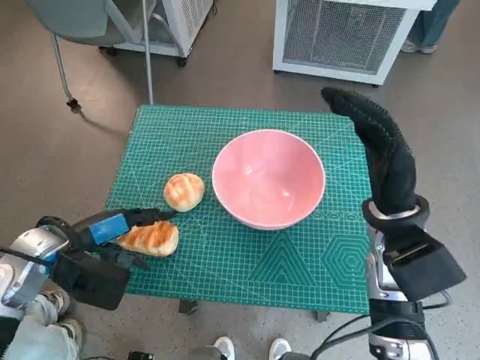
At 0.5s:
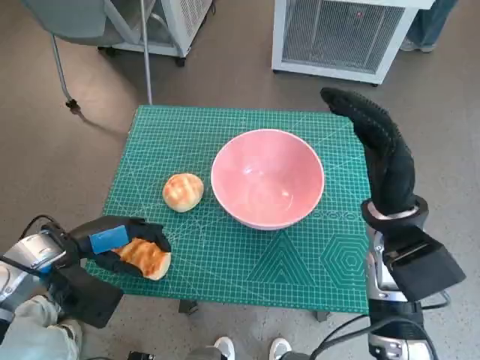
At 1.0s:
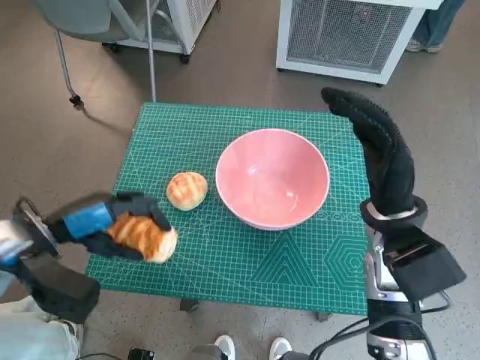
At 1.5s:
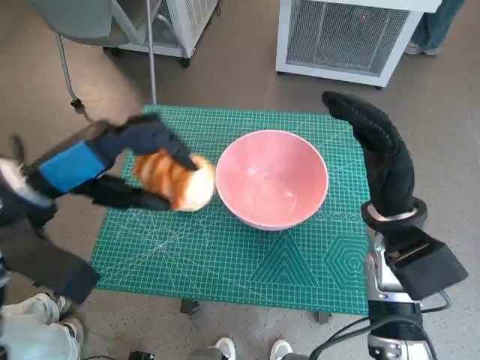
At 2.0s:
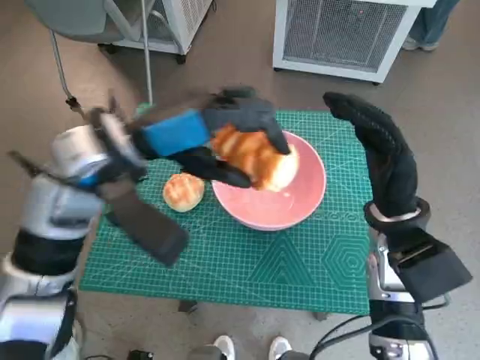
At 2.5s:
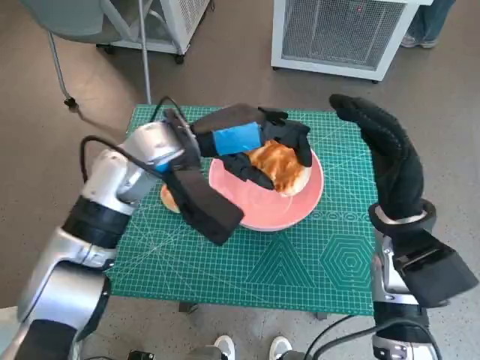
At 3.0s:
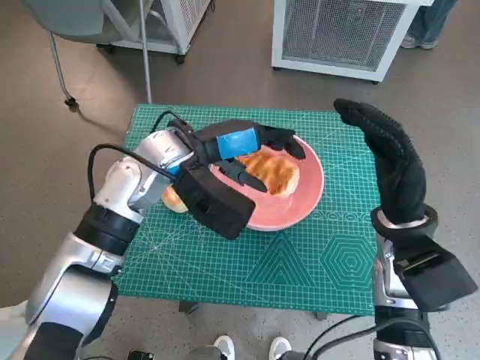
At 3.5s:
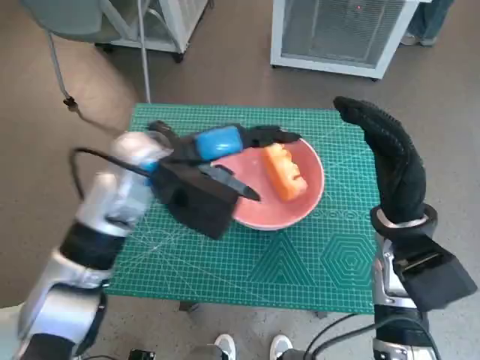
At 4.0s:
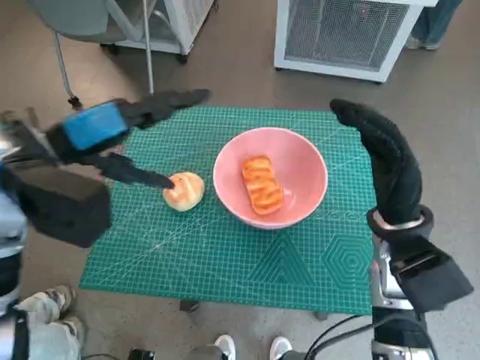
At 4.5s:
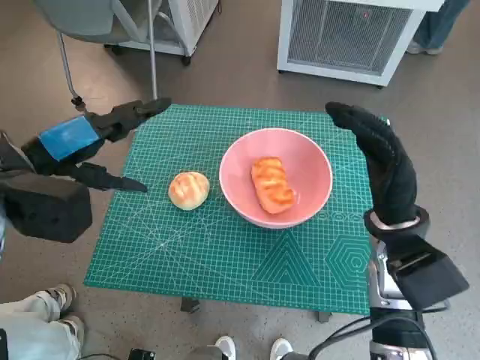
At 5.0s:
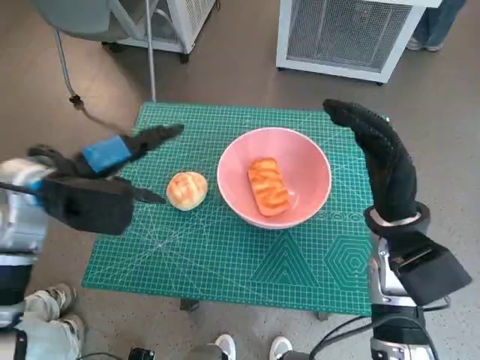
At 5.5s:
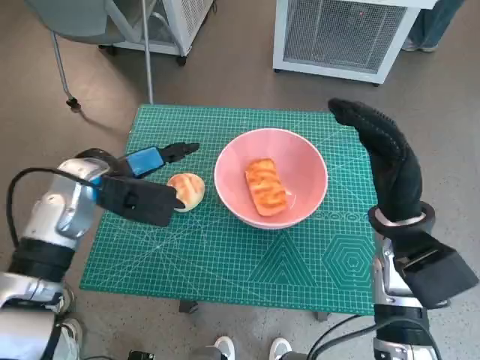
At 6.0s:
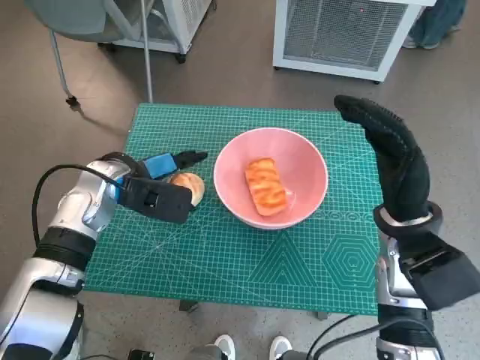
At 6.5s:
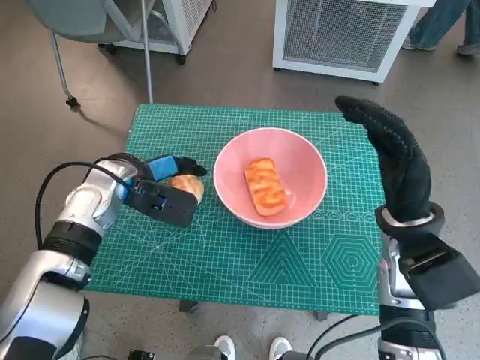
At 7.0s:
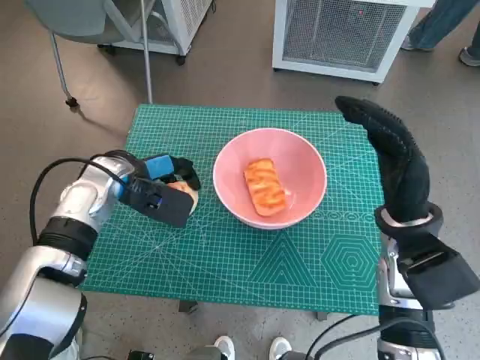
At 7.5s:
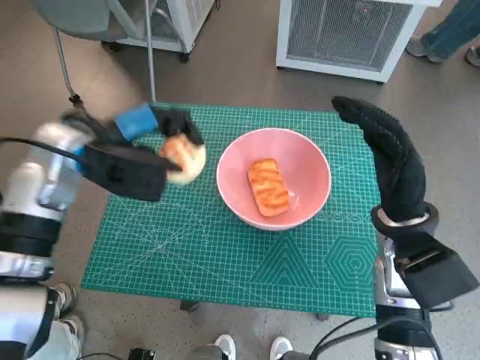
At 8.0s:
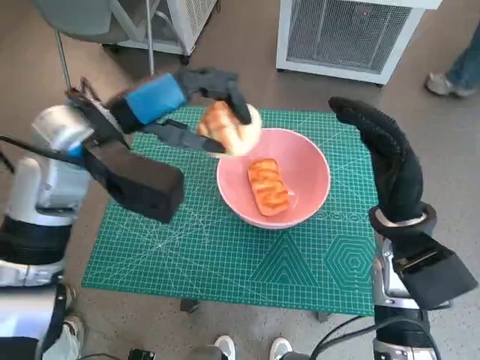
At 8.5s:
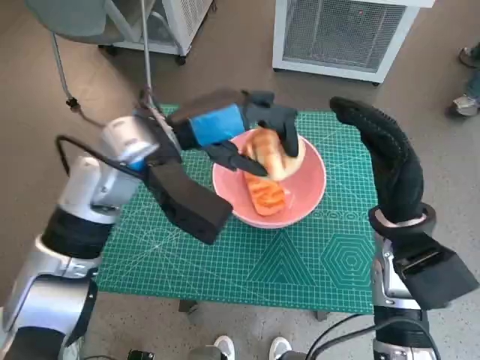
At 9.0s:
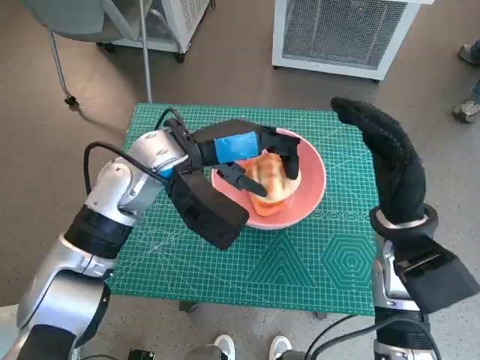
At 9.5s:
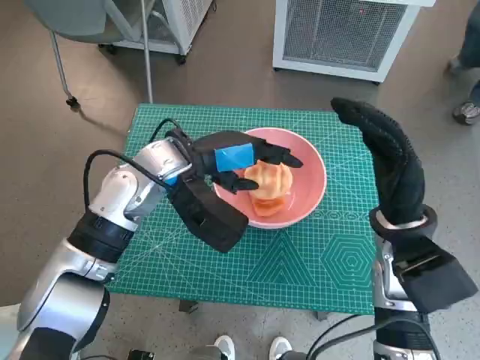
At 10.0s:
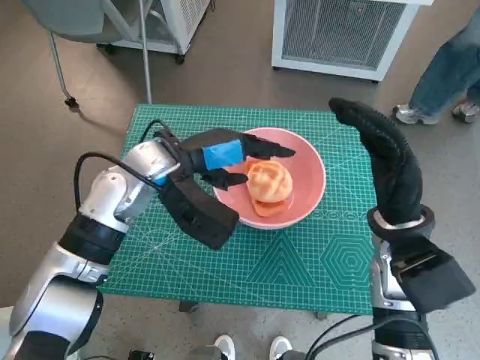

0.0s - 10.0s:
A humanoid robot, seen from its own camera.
Task of the whole recording: Push the bowl to the center of the table and put the bread into the bowl.
Step, 0.5s - 3.5s: Place the long bread in pink bowl with left hand.
Step, 4.0s - 6.5s: Grasp the round bread with left hand.
0.0s - 2.0s: The left hand heads upward and to the right, covering about 20 cm.
2.0s - 4.0s: The left hand shifts about 5 cm to the left.
4.0s - 6.0s: The left hand goes some 15 cm downward and forward.
6.0s - 8.0s: The left hand moves upward, some 15 cm.
8.0s - 10.0s: The left hand moves downward and to the right, approximately 10 cm.

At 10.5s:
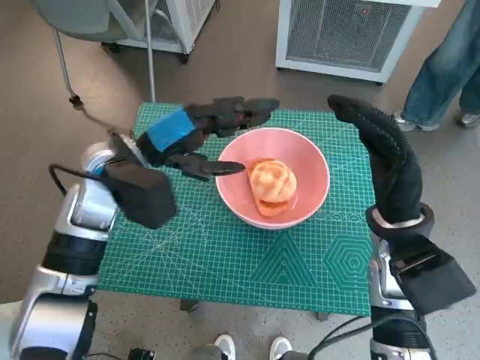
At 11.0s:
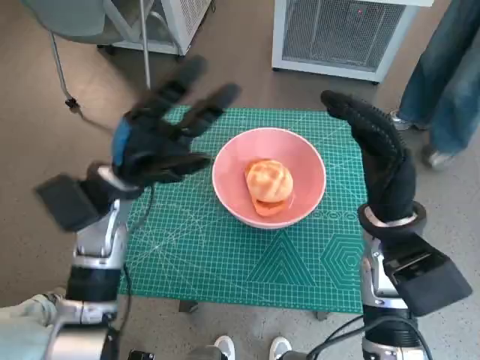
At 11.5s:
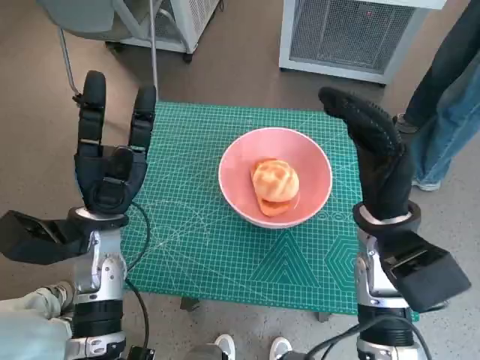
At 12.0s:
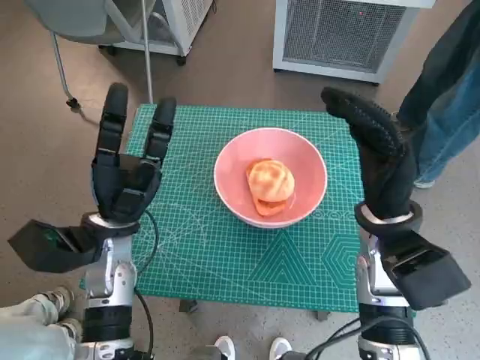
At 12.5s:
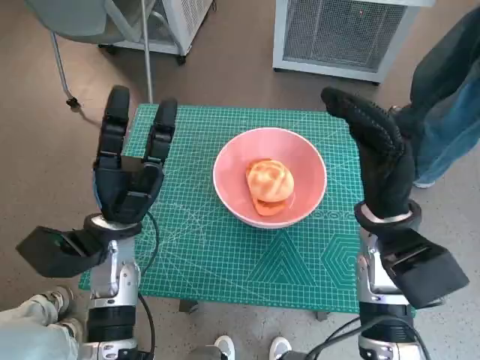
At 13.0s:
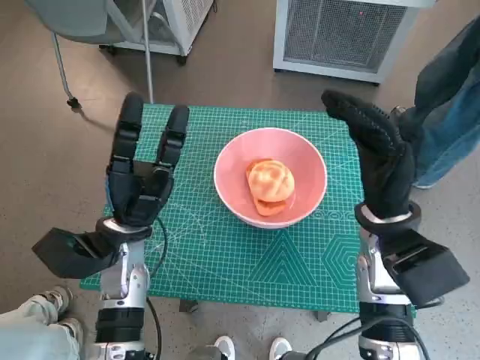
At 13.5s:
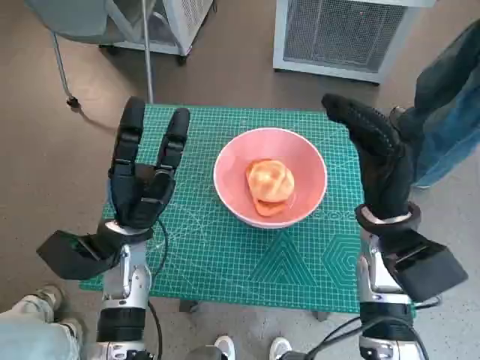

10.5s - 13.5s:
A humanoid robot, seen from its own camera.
Task of the whole recording: Push the bowl to the center of the table and put the bread into the bowl.
10.5s - 12.0s: The left hand goes about 10 cm downward and backward.
12.0s - 13.5s: The hands move only a little.

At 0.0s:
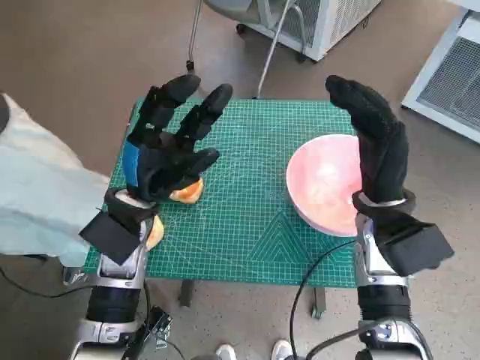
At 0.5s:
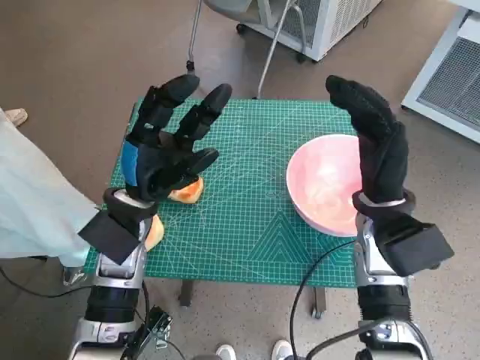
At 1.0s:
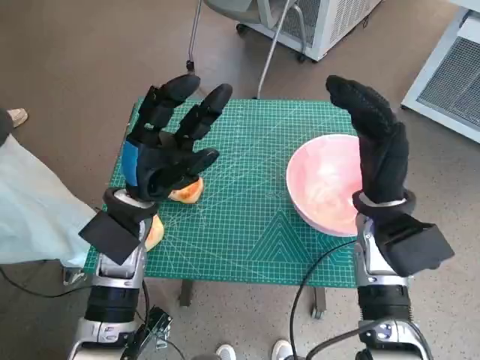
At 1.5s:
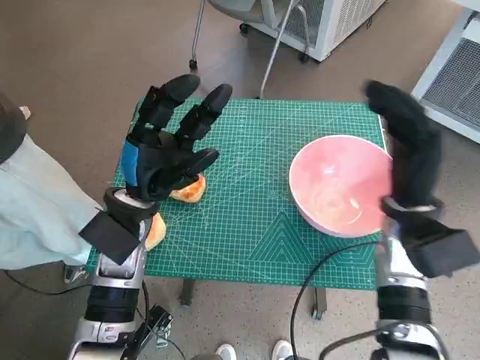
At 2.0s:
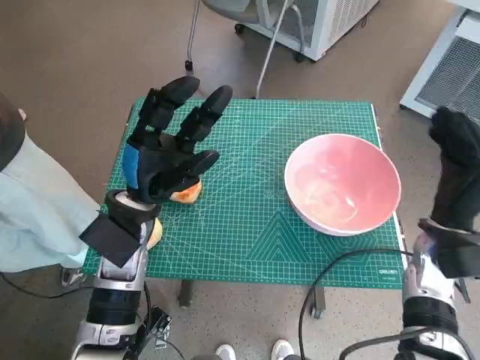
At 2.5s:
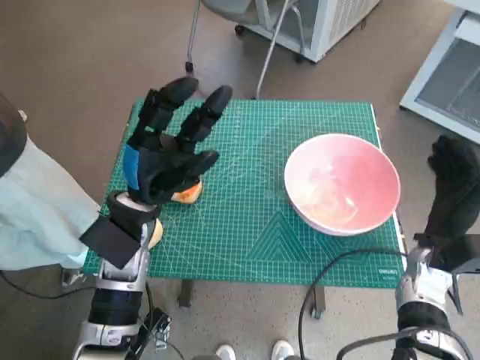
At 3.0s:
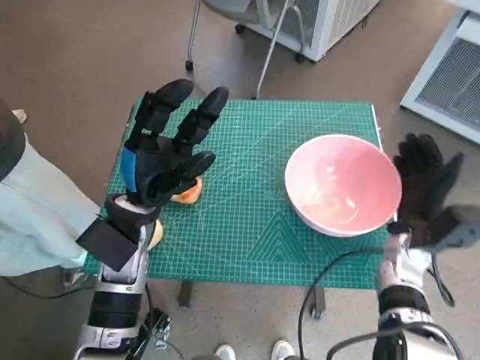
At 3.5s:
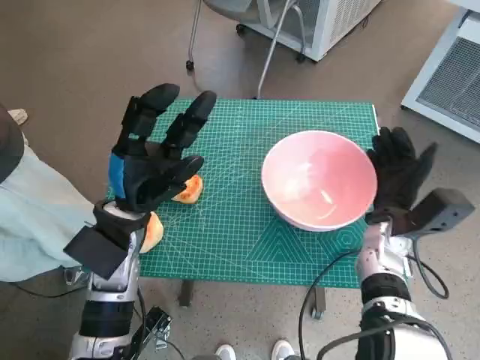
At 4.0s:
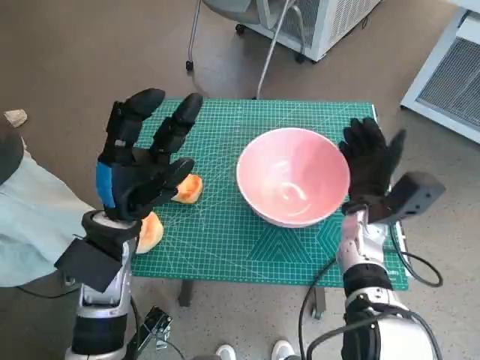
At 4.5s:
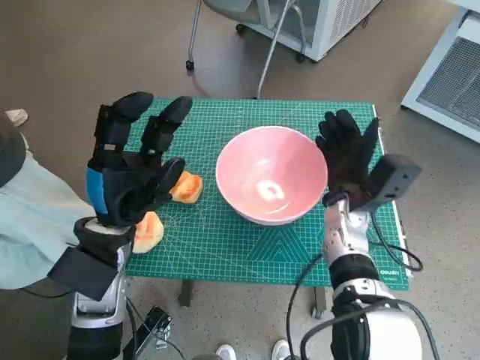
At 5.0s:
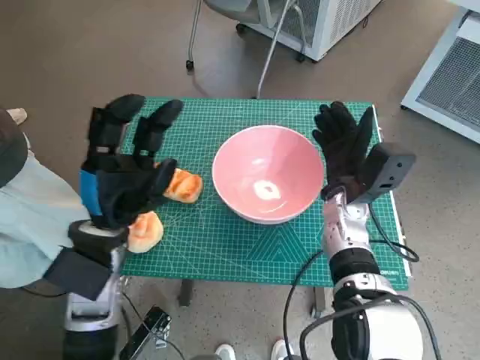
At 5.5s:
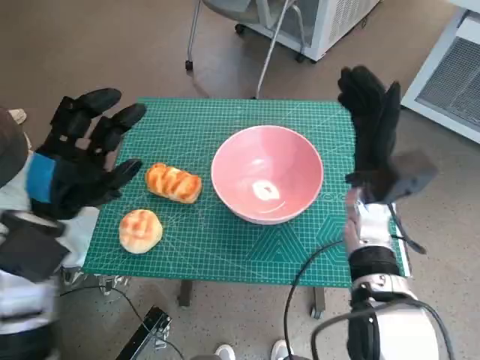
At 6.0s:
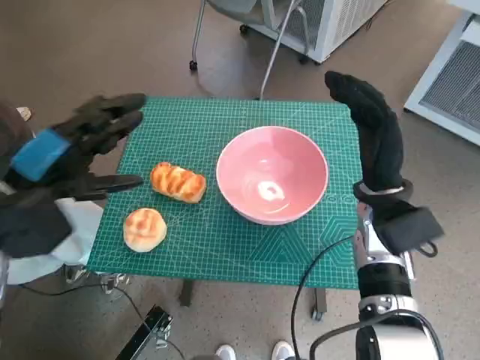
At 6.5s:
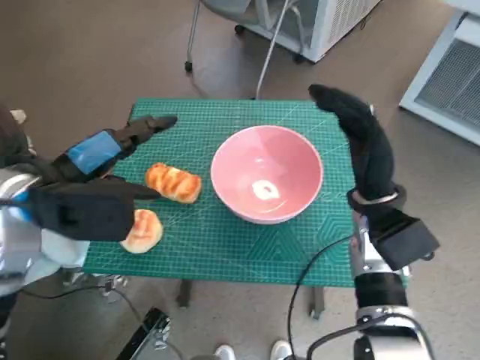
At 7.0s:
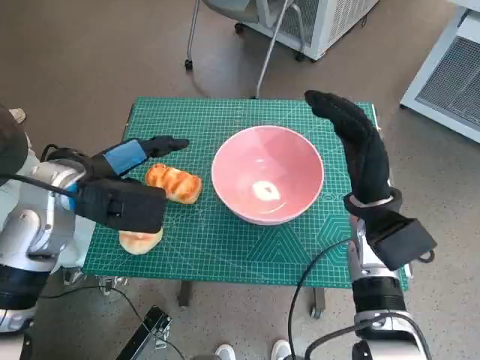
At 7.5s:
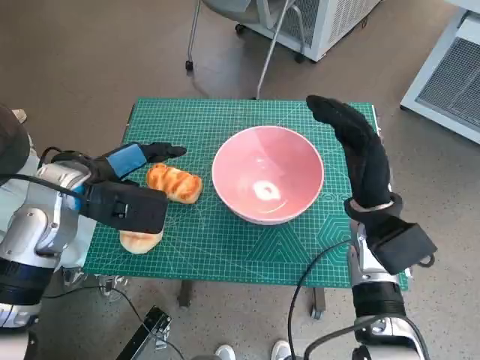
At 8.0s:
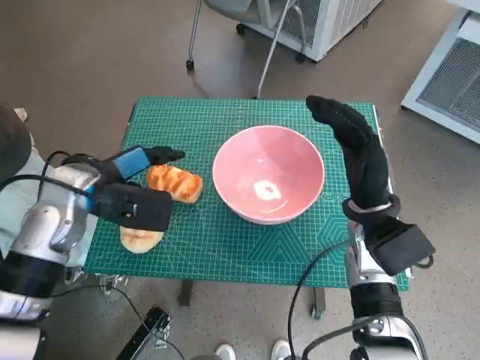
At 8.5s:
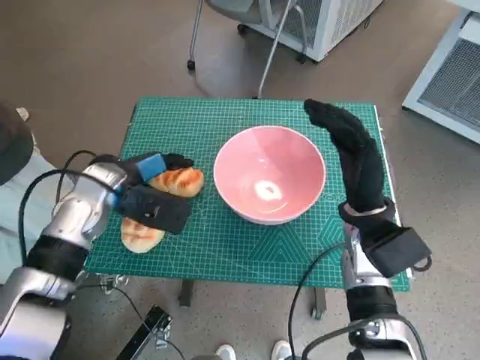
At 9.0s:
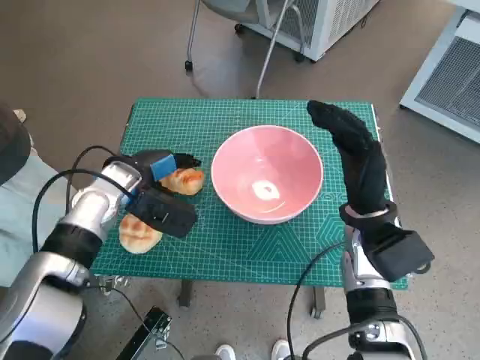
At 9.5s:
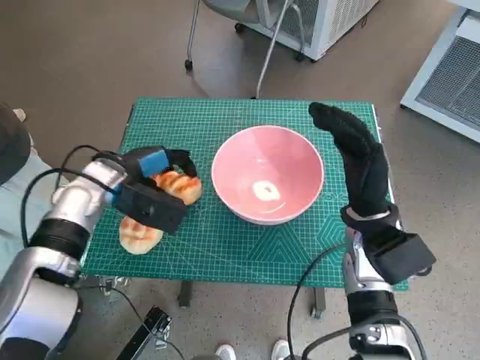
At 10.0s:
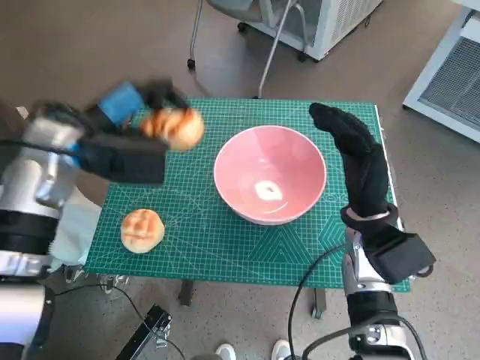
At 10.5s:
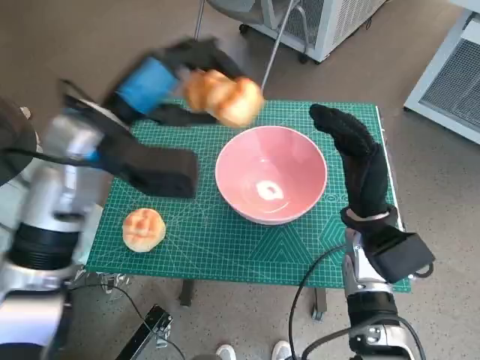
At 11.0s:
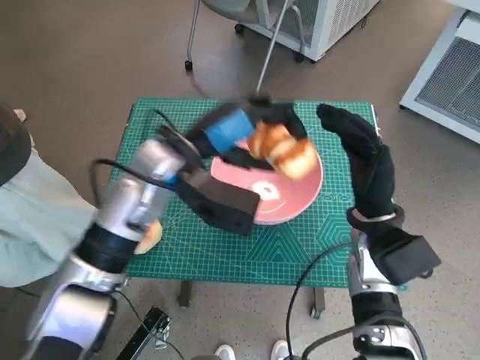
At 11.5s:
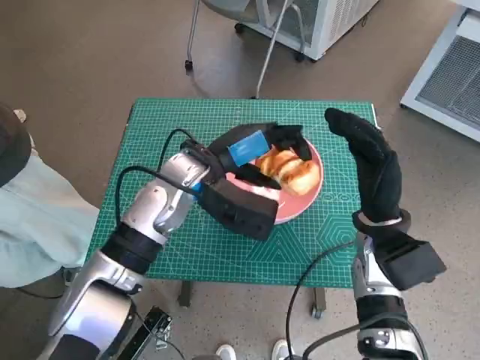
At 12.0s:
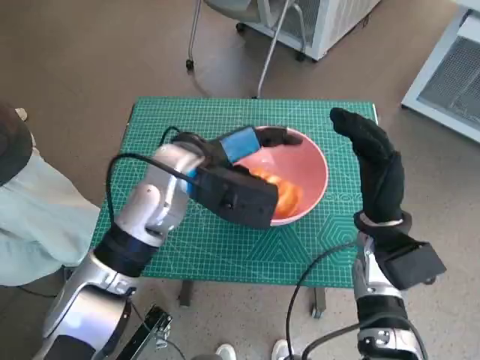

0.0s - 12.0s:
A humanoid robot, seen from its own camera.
Task of the whole recording: Push the bowl to the center of the table and put the bread into the bowl.
Step, 0.0s - 5.0s: Move the pink bowl to the center of table with right hand.
Step, 5.5s - 9.0s: Grasp the long bread with left hand.
2.0s - 4.0s: The right hand shifts about 10 cm to the left.
4.0s - 6.0s: The right hand goes about 5 cm upward; the left hand goes roughly 10 cm to the left and upward.
6.0s - 8.0s: The left hand travels forward by about 5 cm.
8.0s - 10.0s: The left hand moves approximately 5 cm.
10.0s - 12.0s: The left hand travels to the right by approximately 15 cm.
